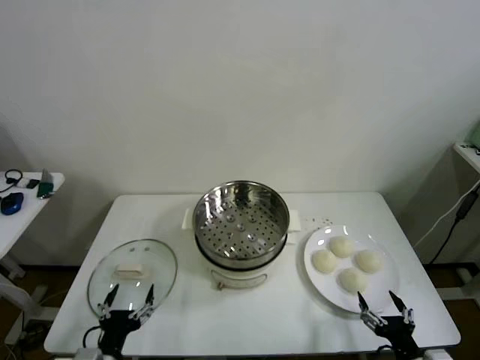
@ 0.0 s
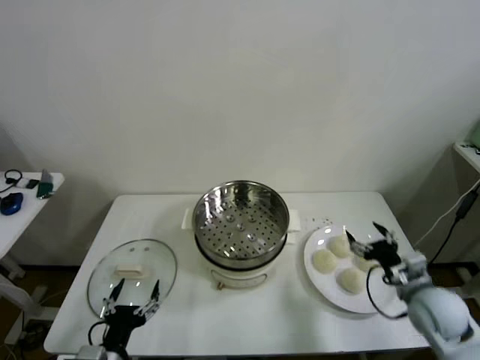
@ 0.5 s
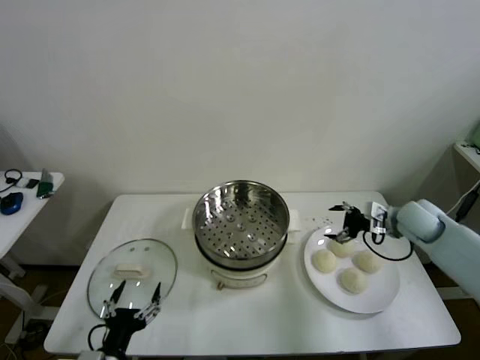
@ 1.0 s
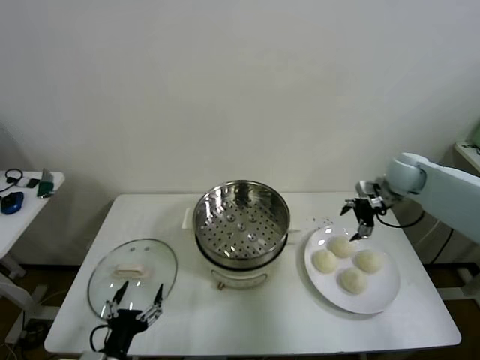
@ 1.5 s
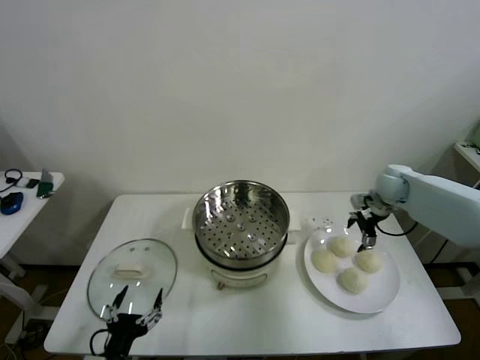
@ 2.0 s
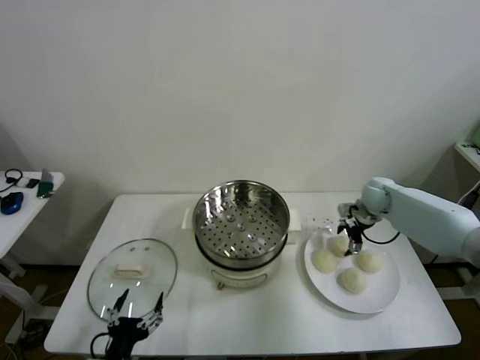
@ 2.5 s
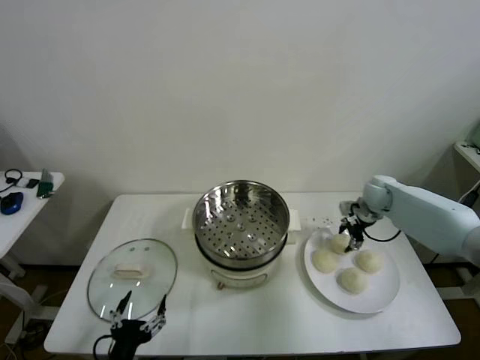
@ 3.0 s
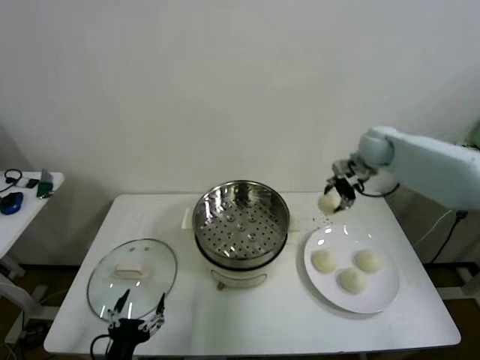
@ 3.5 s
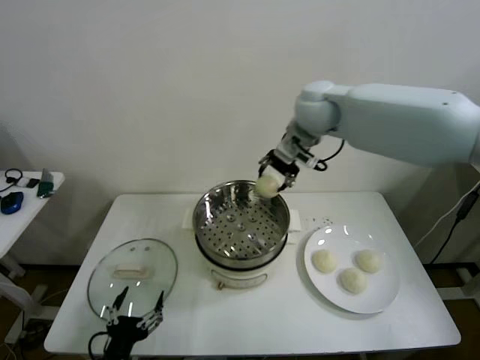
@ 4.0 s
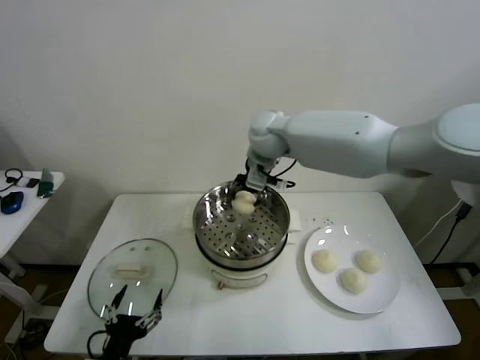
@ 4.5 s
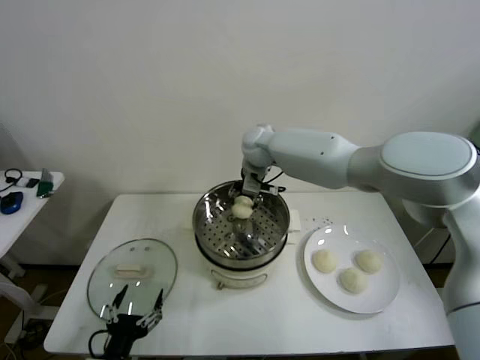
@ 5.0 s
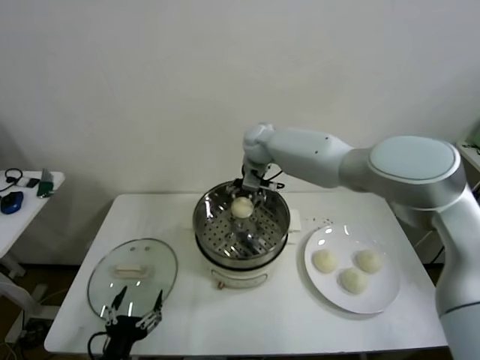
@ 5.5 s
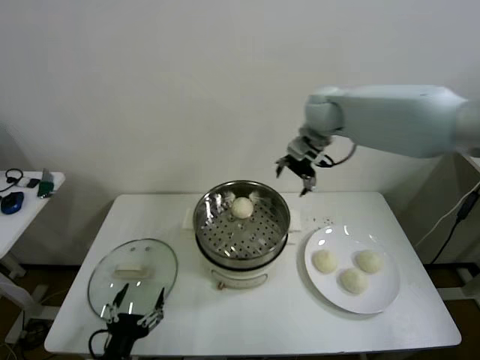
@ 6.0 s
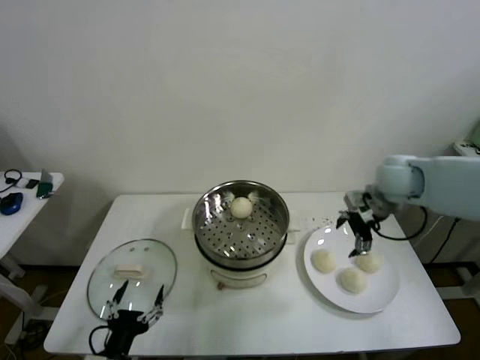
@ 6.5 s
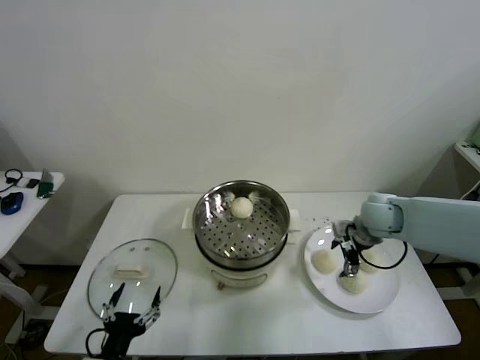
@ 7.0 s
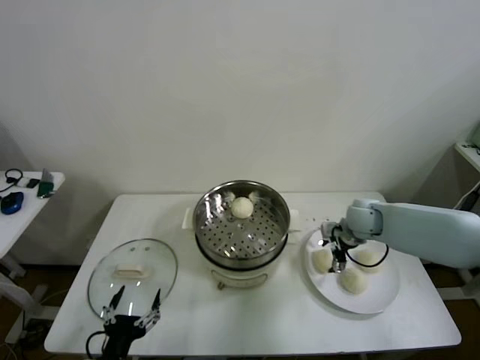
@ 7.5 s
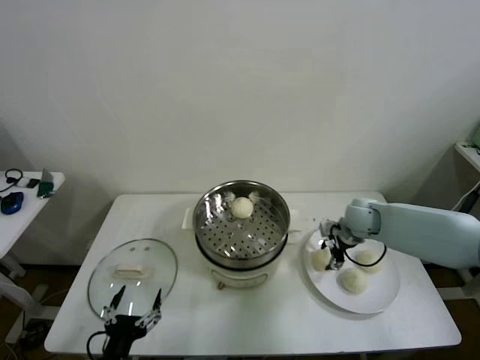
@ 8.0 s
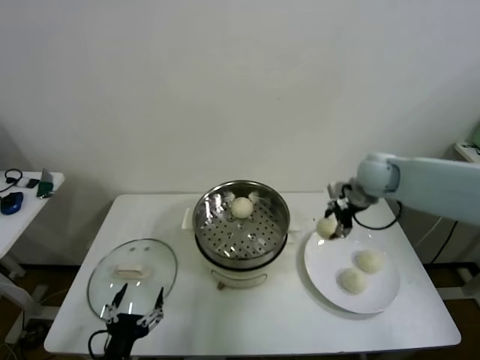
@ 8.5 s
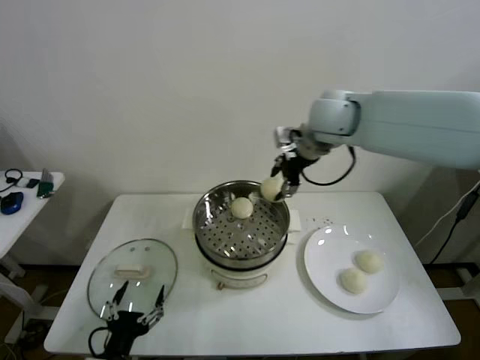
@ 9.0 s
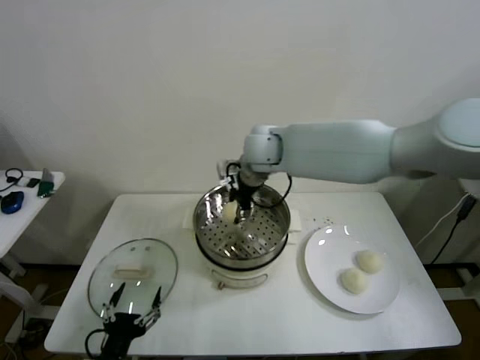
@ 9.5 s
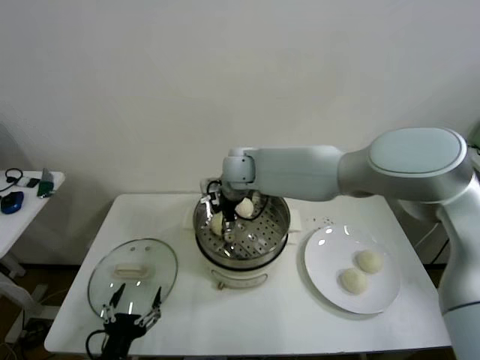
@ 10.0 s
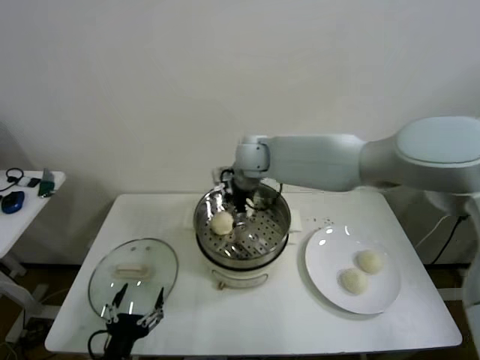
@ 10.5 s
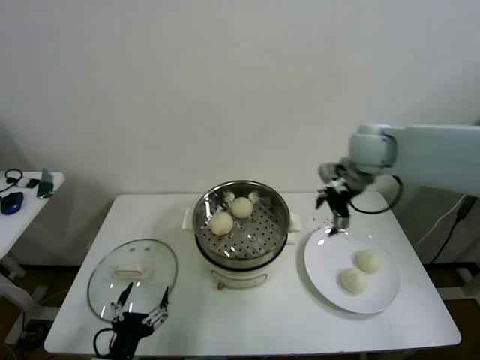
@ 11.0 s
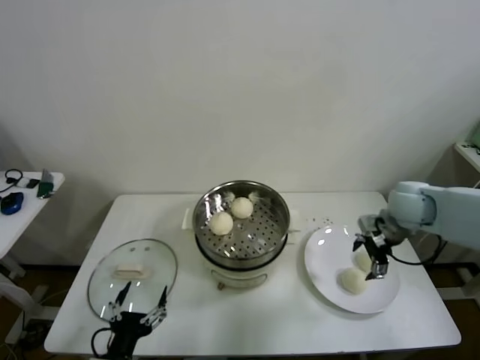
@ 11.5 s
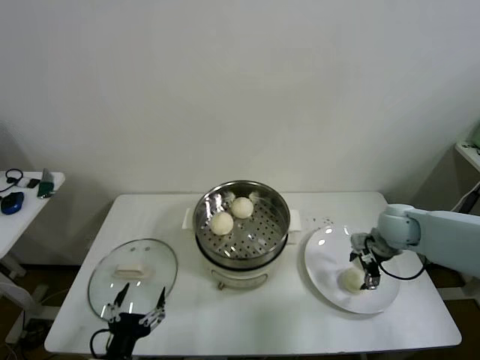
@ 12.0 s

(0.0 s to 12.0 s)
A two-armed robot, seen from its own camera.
Step, 0.0 s - 2.5 s: Grasp the baozi in the plate with right gripper.
Step, 3.0 s - 5.0 s: Place the baozi on the steamer with right gripper.
Step, 5.5 s - 7.5 s: Grasp the baozi in the plate with right gripper.
Step, 8.0 s - 10.0 s: Place the baozi on the steamer with right gripper.
2.0 s - 4.0 s: The right gripper heads to the left and upward, covering about 35 cm, and closes.
4.0 s - 6.0 s: The right gripper travels to the right by approximately 10 cm, and opens.
6.0 s - 8.0 s: The right gripper goes some 25 cm downward, and closes up.
8.0 s - 10.0 s: The right gripper is displaced to the left by some 30 cm.
10.0 s - 12.0 s: The right gripper heads to the right, covering roughly 35 cm, and opens its fingers.

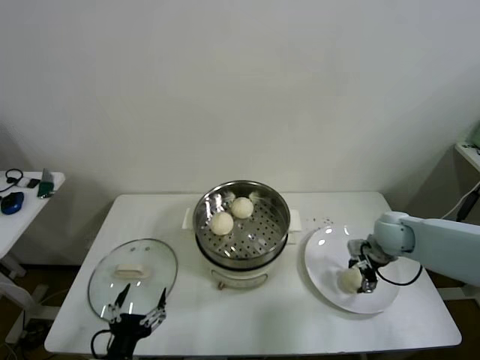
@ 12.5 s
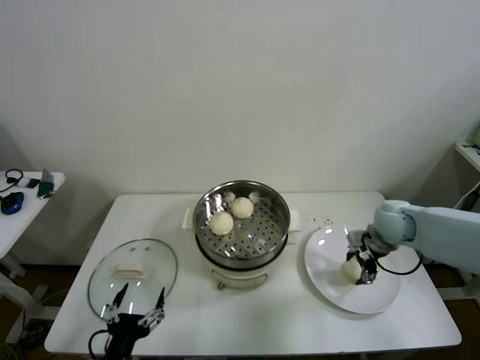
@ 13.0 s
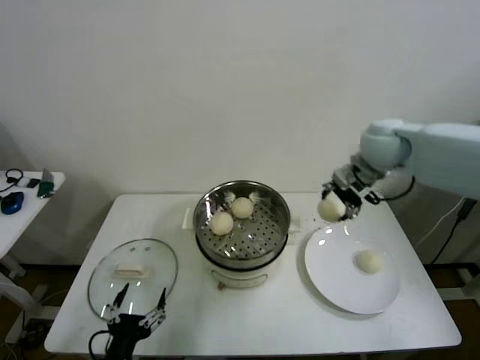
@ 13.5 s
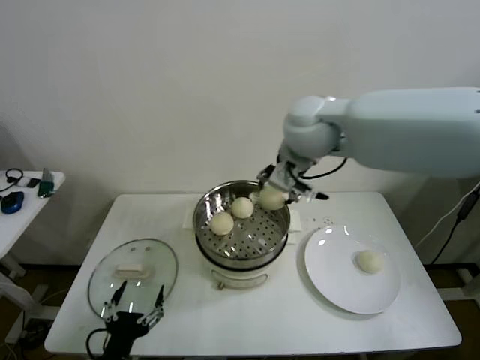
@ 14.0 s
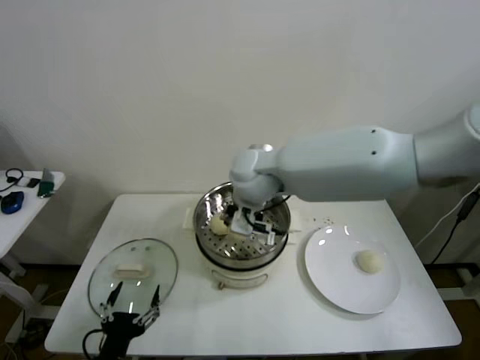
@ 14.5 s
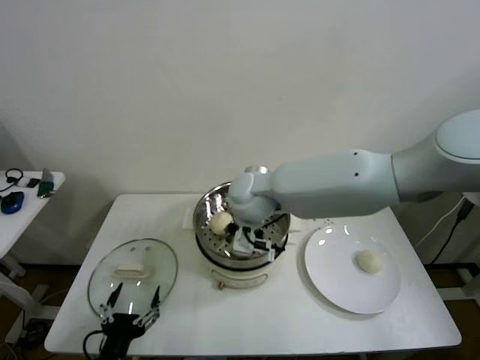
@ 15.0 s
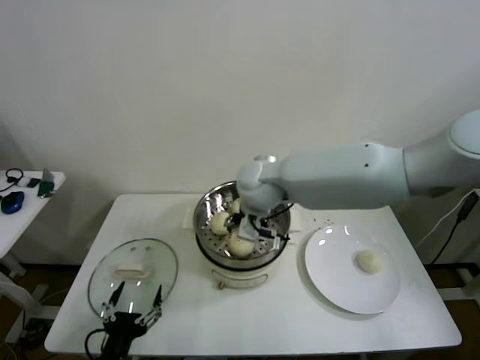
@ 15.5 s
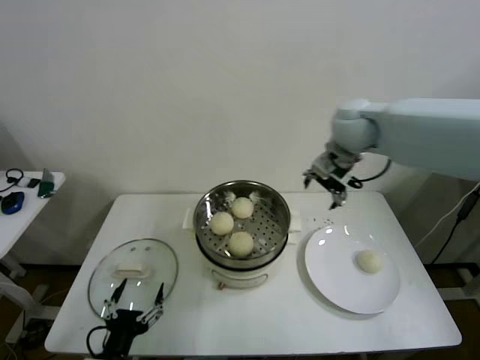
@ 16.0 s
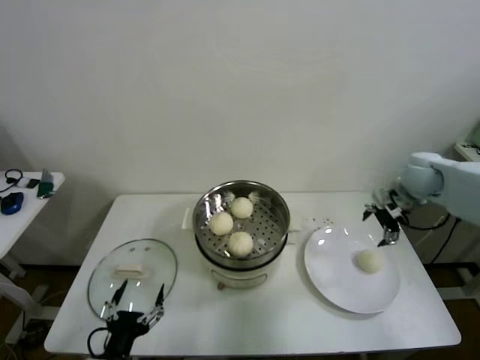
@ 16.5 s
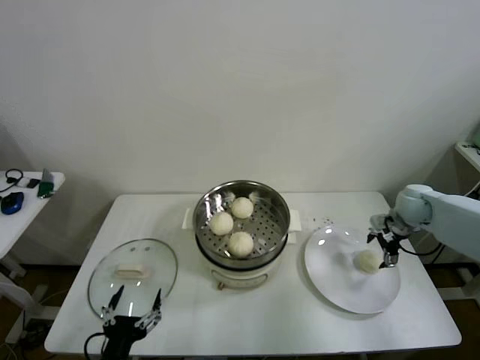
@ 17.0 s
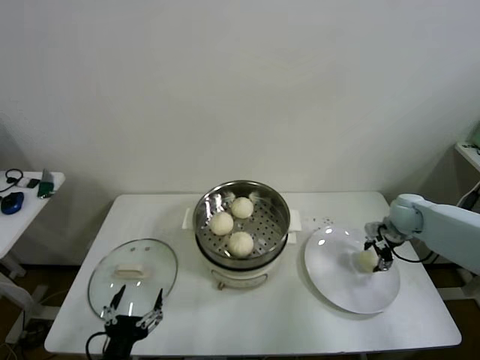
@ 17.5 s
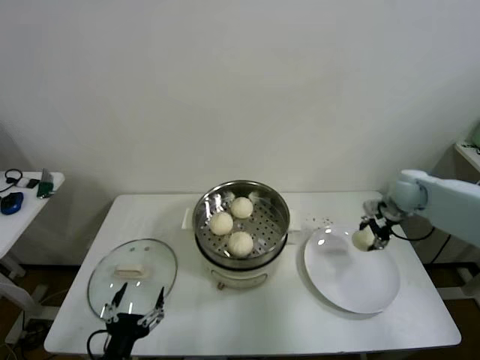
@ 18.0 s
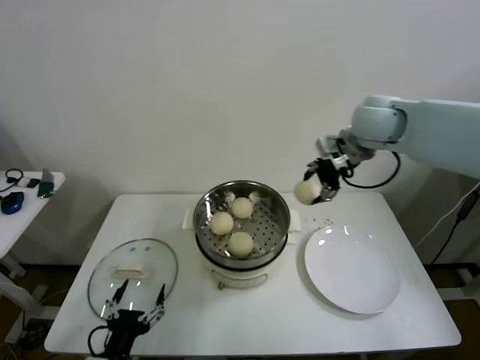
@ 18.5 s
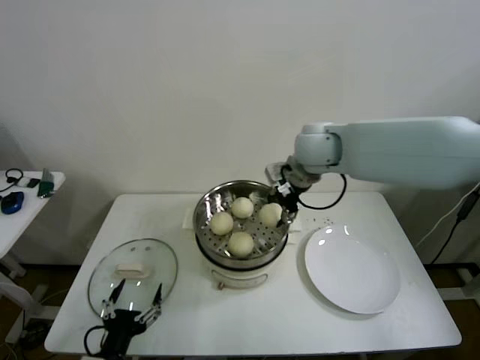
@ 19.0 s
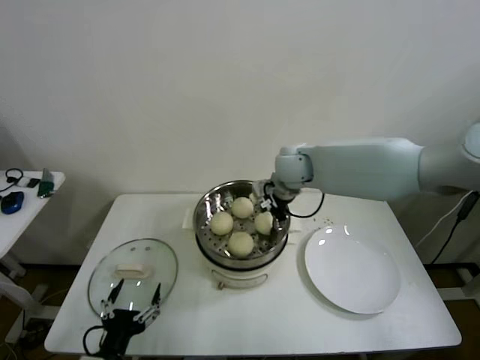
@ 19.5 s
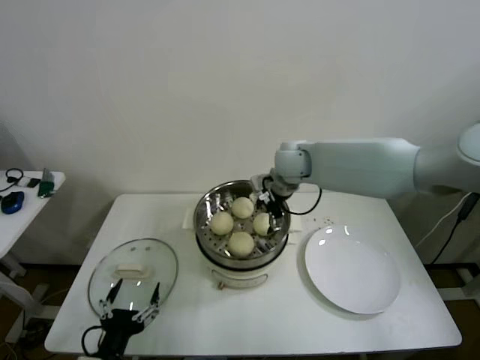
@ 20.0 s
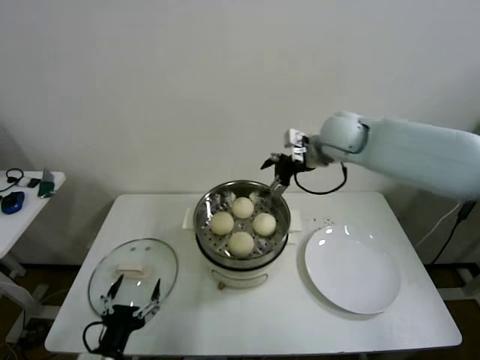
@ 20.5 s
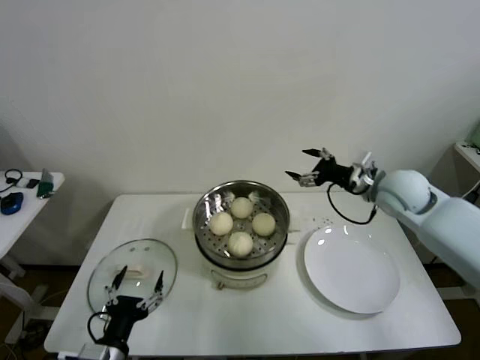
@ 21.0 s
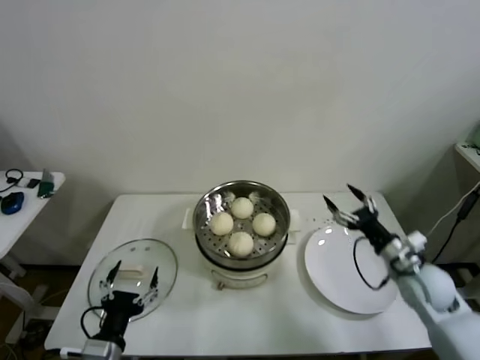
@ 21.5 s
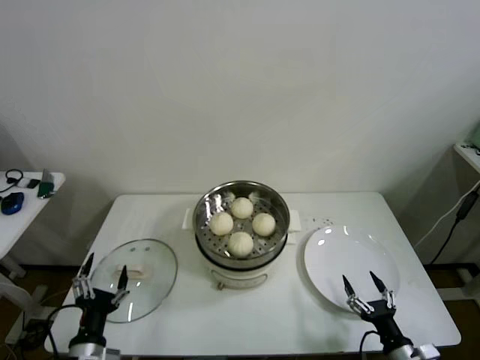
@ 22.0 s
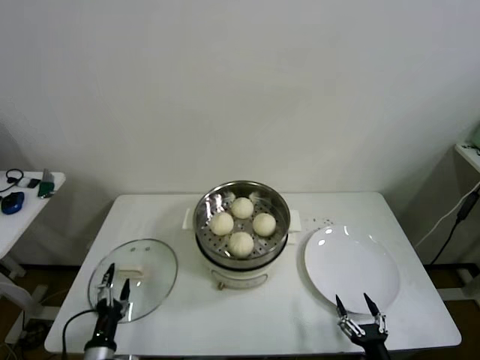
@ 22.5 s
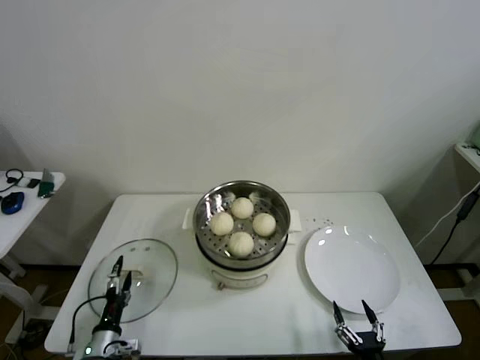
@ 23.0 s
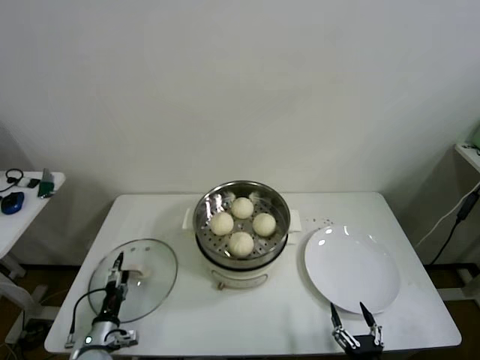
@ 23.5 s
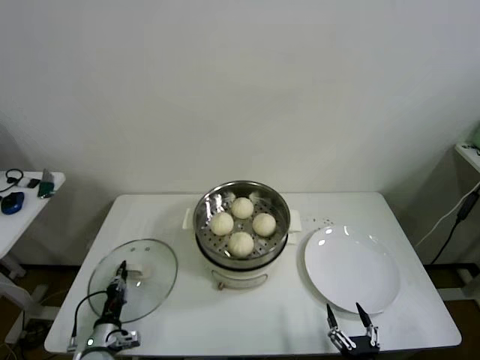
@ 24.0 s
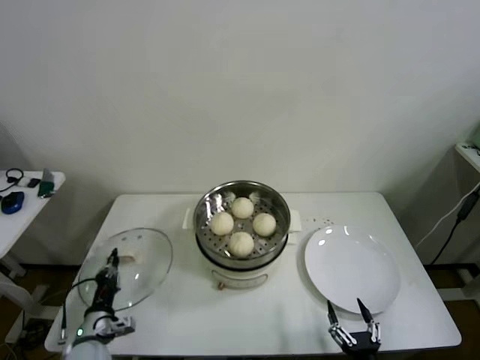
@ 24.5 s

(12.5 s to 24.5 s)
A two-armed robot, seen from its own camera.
Step, 13.0 s - 15.0 s: Place the baozi on the steamer with right gripper.
Step, 15.5 s - 17.5 s: Grasp the baozi in the plate with right gripper.
Step, 18.0 s - 19.5 s: Place the baozi on the steamer with right gripper.
Step, 20.0 s - 24.0 s: Grasp the pot lid with left gripper.
12.5 s - 14.5 s: The right gripper is displaced to the left and upward by about 40 cm.
14.5 s - 16.5 s: The right gripper is displaced to the right by roughly 40 cm, and opens up.
16.5 s - 18.5 s: The right gripper goes some 25 cm to the left and upward, and closes its fingers.
18.5 s - 20.5 s: The right gripper moves downward, roughly 5 cm, and opens up.
20.5 s - 22.5 s: The right gripper goes roughly 60 cm backward and downward. Meanwhile the left gripper moves downward and to the left, about 15 cm.
22.5 s - 24.5 s: The left gripper travels forward by roughly 5 cm, and closes.

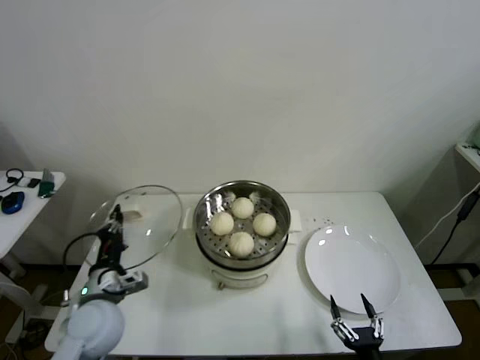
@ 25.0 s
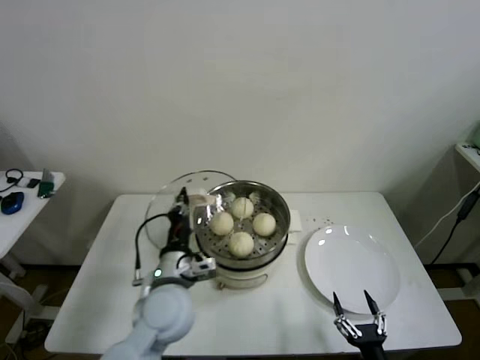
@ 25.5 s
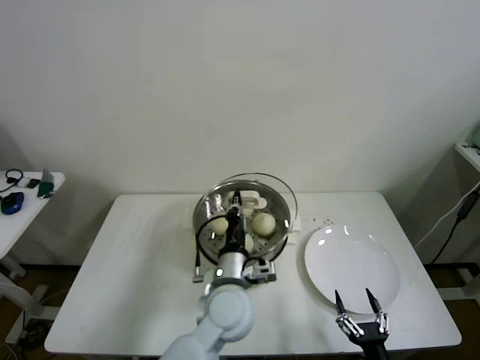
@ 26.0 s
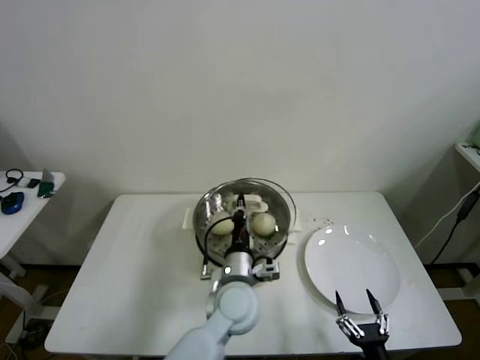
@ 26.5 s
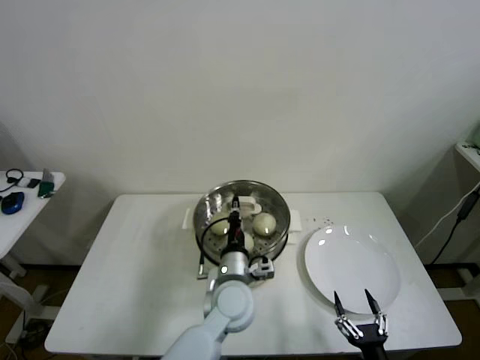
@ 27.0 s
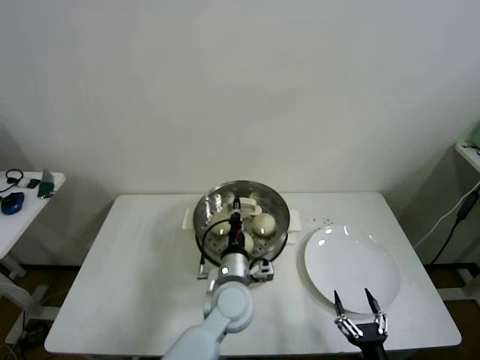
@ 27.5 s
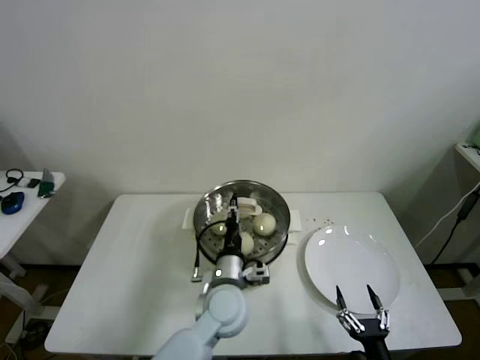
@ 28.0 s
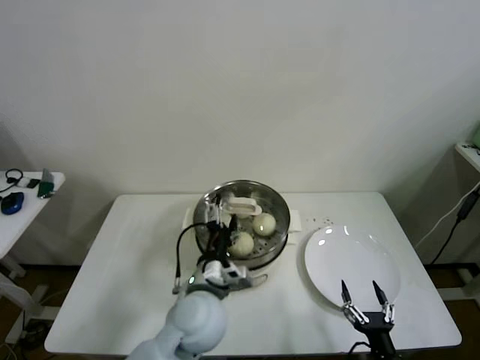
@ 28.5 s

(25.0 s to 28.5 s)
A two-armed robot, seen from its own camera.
Step, 25.0 s - 27.5 s: Place the pot lid on the steamer with left gripper.
25.0 s - 27.0 s: The left gripper is displaced to the right by about 25 cm.
27.0 s - 28.5 s: The left gripper shifts by roughly 10 cm, and opens up.
